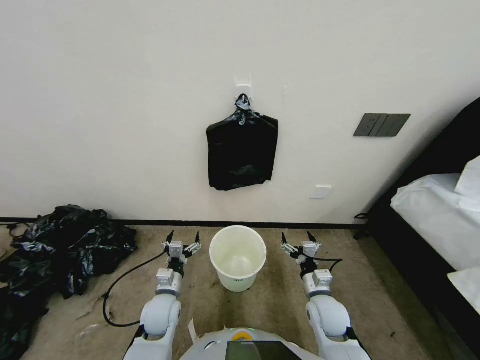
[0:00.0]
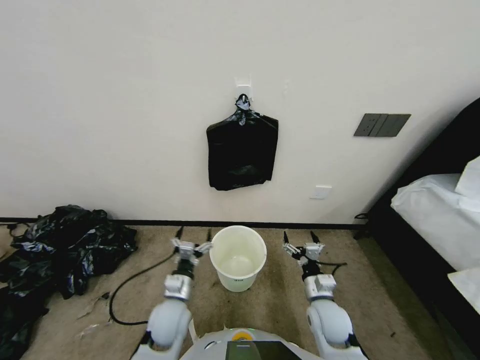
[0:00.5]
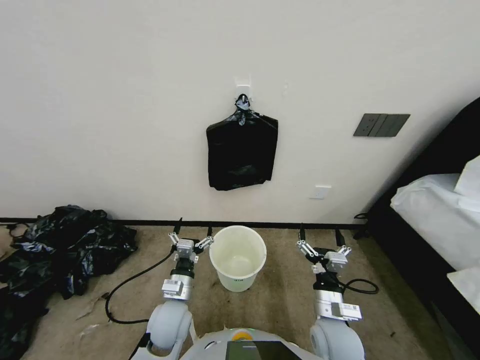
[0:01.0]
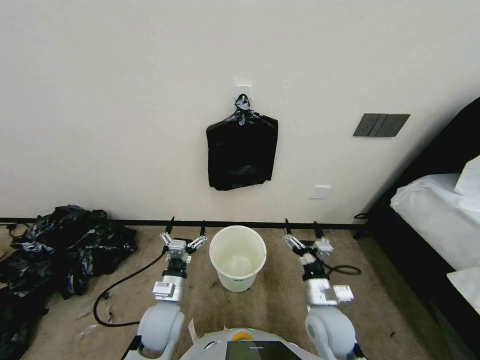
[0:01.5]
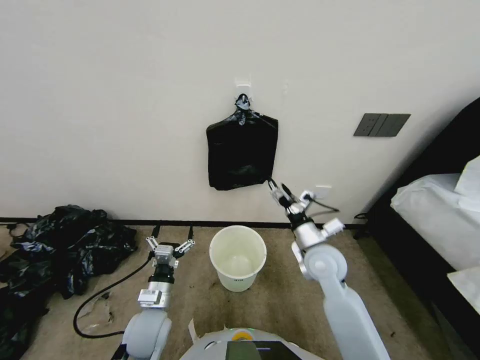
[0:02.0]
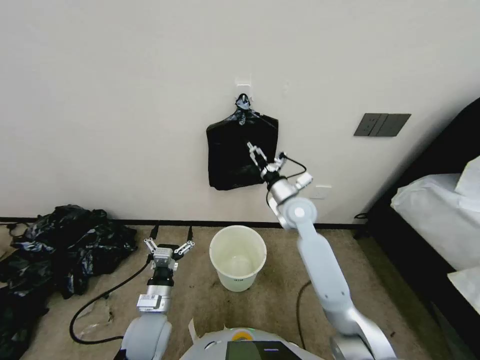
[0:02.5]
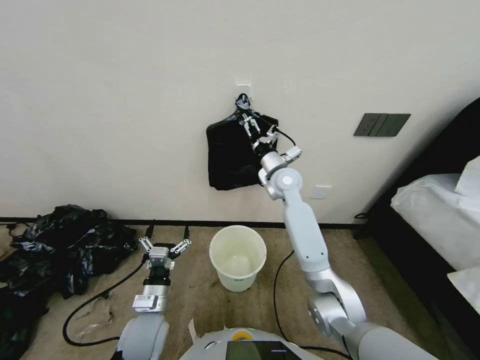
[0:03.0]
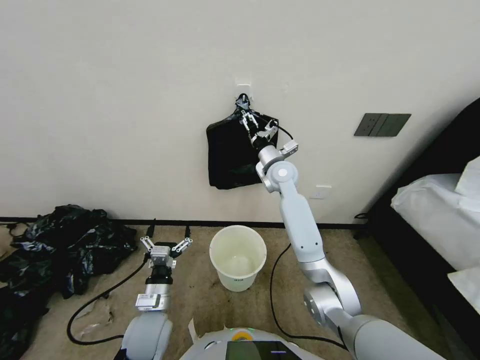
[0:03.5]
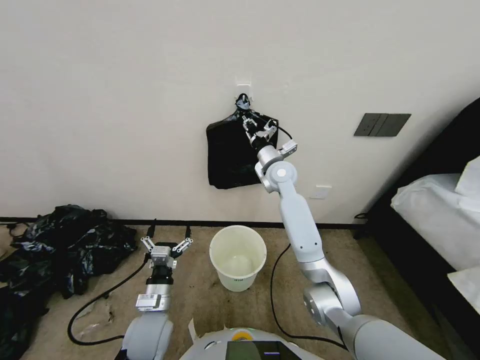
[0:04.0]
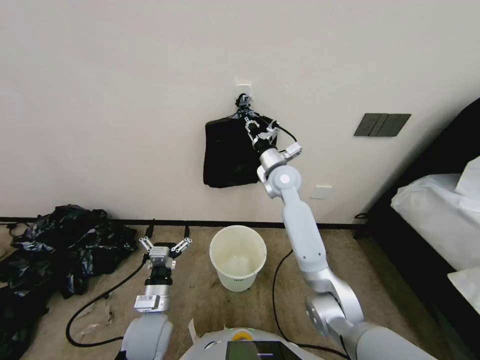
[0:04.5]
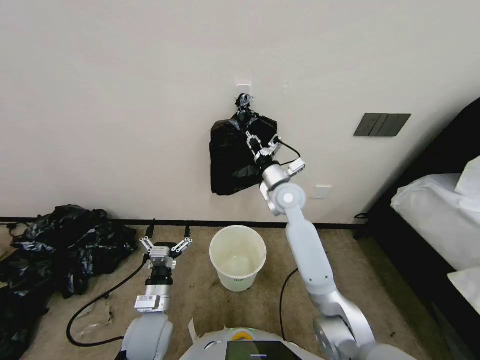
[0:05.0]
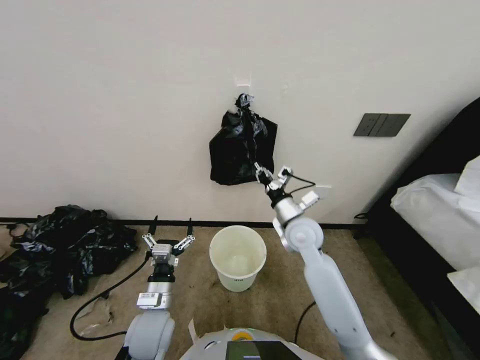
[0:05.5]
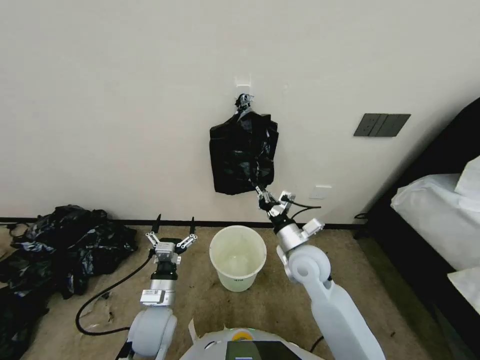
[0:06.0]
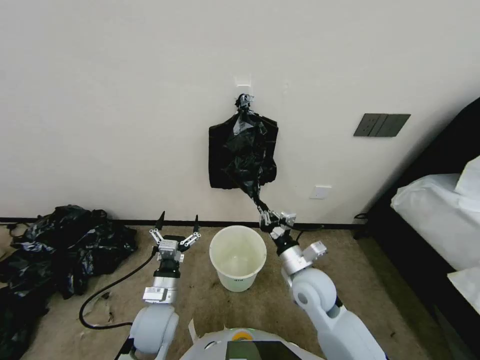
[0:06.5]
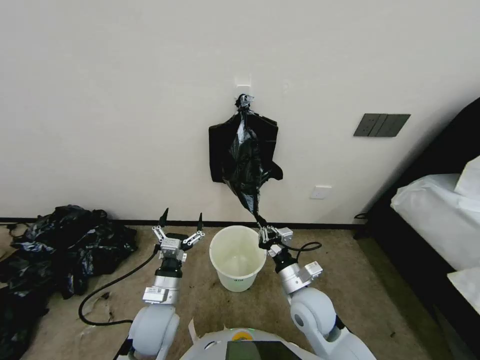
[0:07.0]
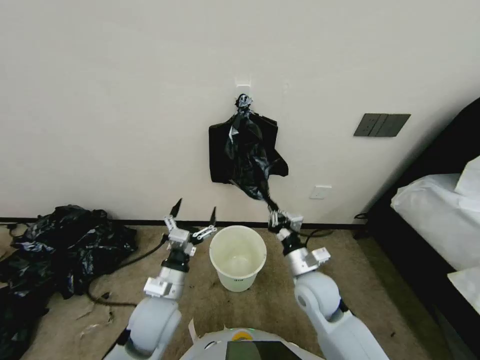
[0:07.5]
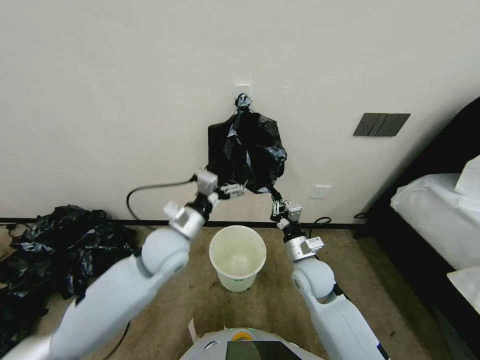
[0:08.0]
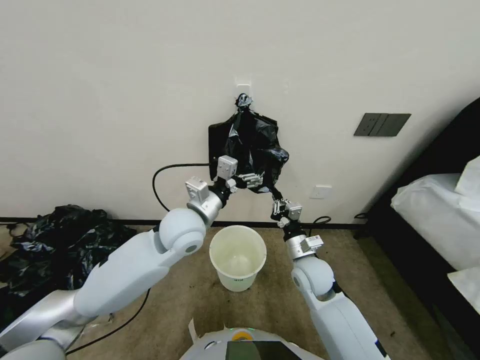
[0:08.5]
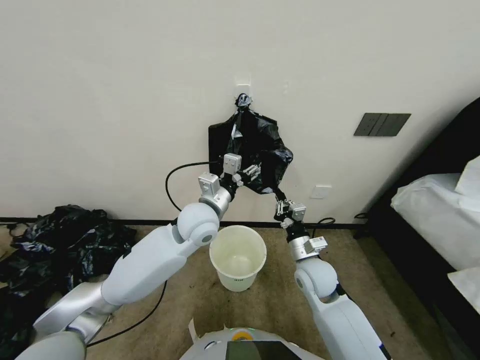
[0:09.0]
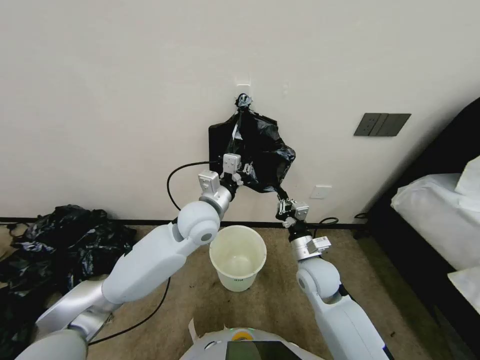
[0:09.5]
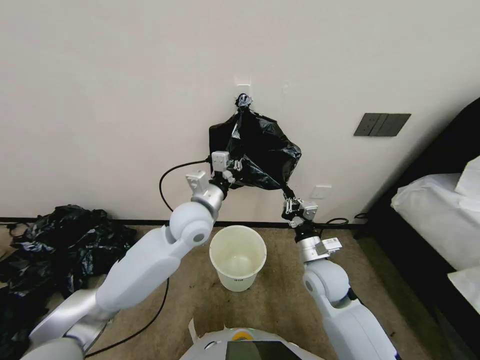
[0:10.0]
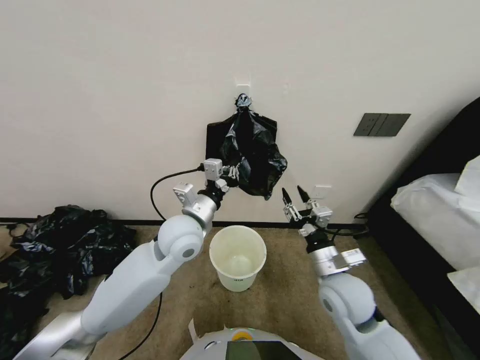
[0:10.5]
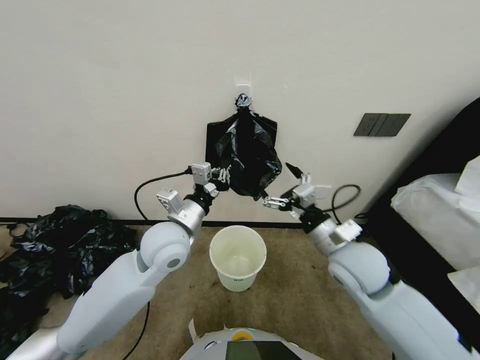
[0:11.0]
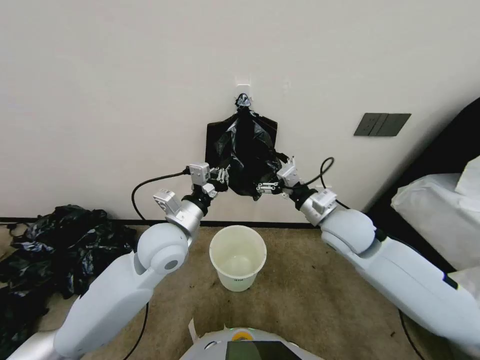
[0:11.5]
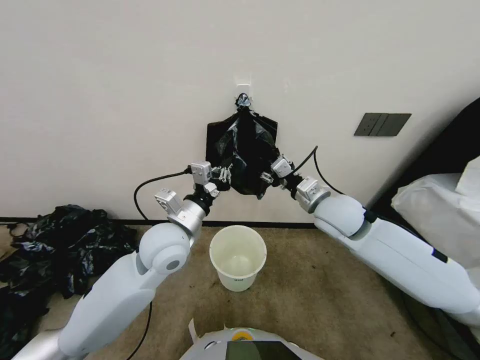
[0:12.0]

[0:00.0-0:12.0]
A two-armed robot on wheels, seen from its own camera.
Task of the whole recording: Place a trash bag onto the trash bin.
0:02.0 to 0:04.0: The right gripper travels forward and upward by roughly 25 cm, and closes.
0:04.0 to 0:06.0: The right gripper shifts some 25 cm backward and downward.
0:06.0 to 0:08.0: The right gripper travels backward and back again, roughly 10 cm each way; the left gripper is displaced upward and forward by roughly 15 cm.
0:08.0 to 0:10.0: The left gripper moves forward, to the right and upward, approximately 15 cm, and closes its fingers.
0:10.0 to 0:12.0: The left gripper goes some 10 cm backward and to the left, while the right gripper goes some 15 cm upward and forward, and opens up.

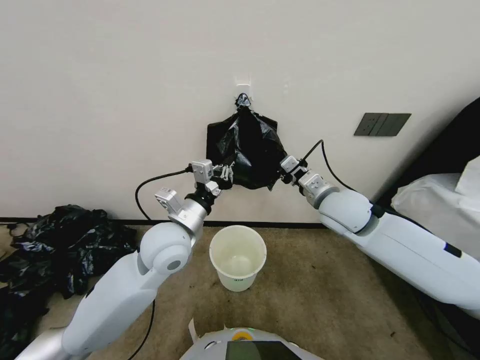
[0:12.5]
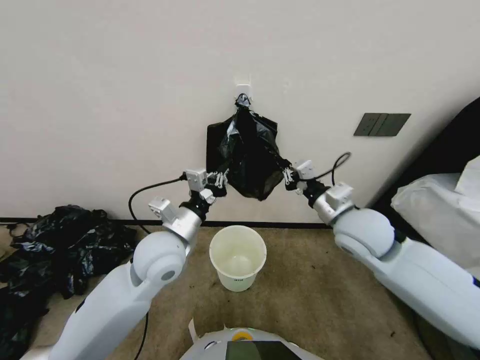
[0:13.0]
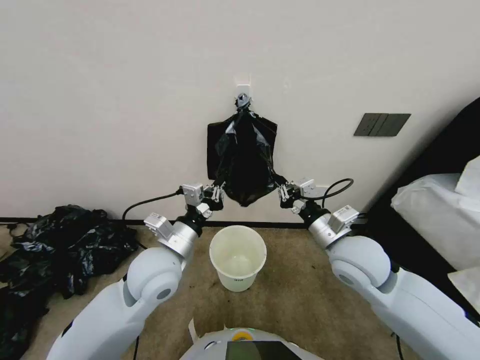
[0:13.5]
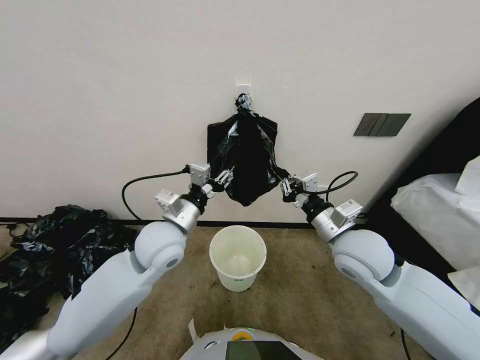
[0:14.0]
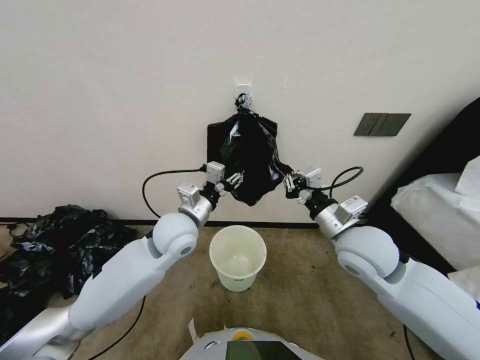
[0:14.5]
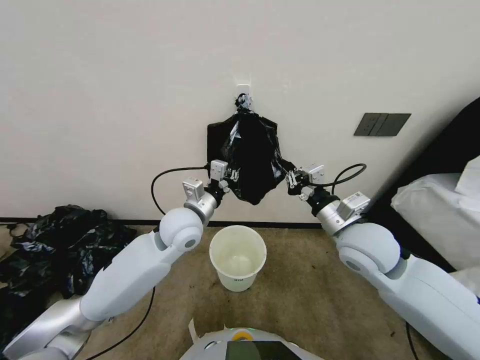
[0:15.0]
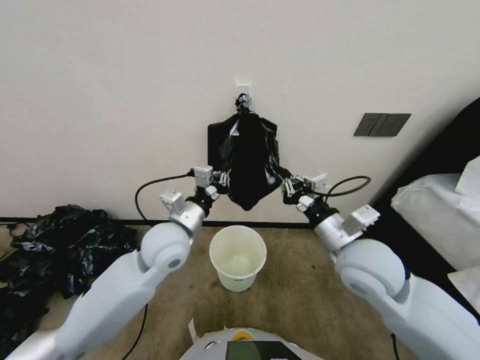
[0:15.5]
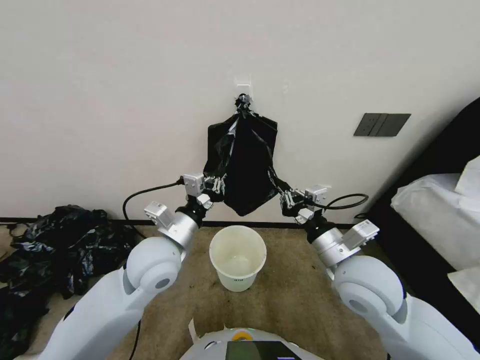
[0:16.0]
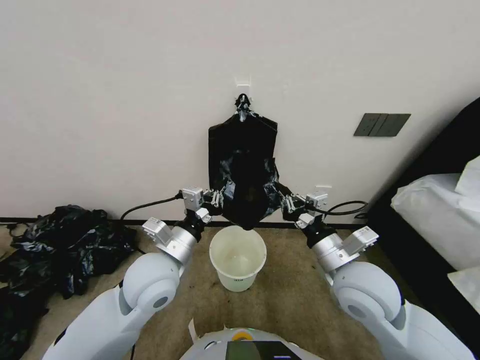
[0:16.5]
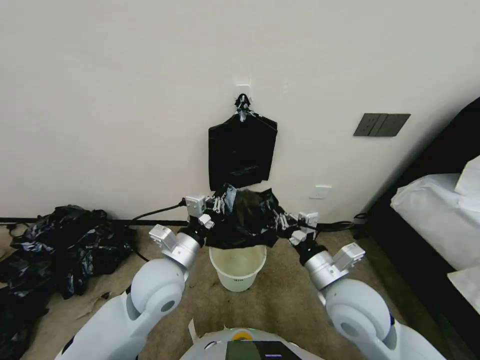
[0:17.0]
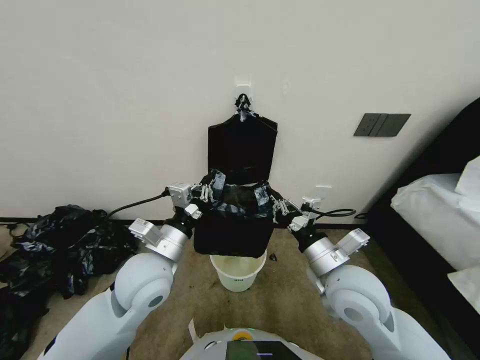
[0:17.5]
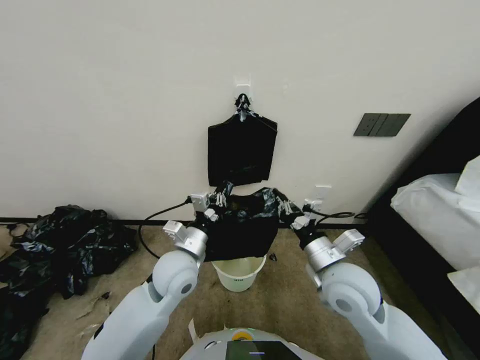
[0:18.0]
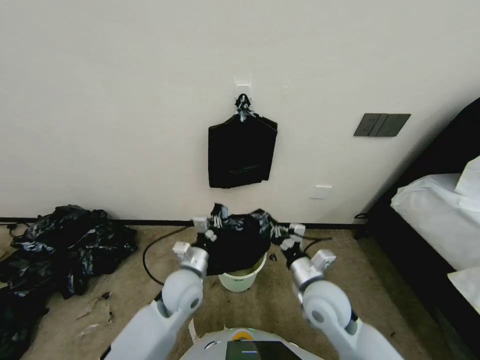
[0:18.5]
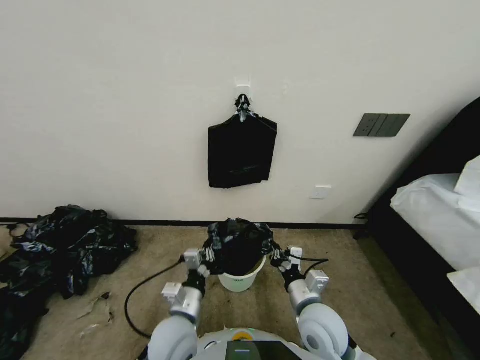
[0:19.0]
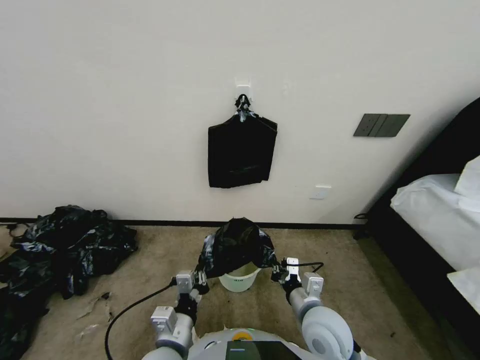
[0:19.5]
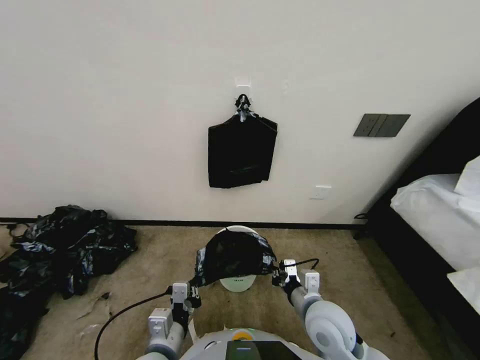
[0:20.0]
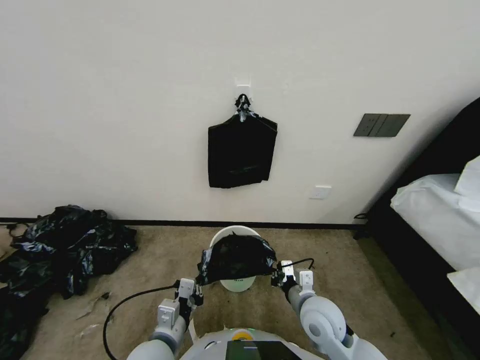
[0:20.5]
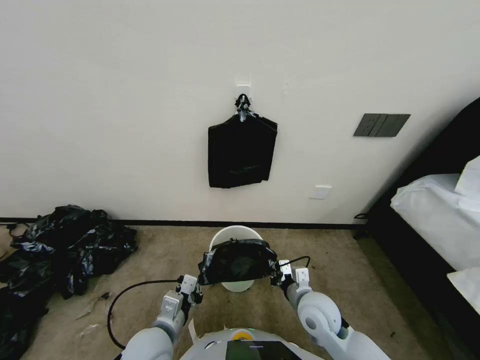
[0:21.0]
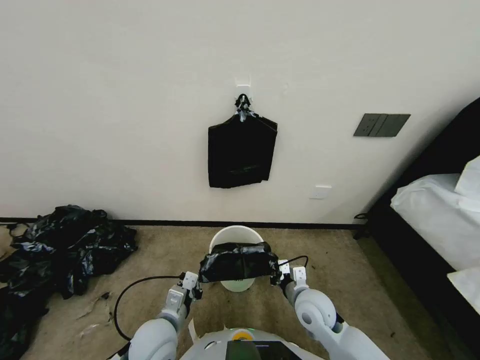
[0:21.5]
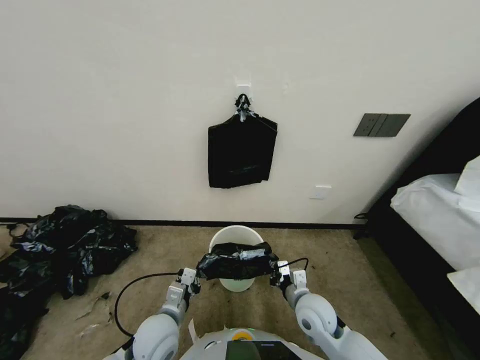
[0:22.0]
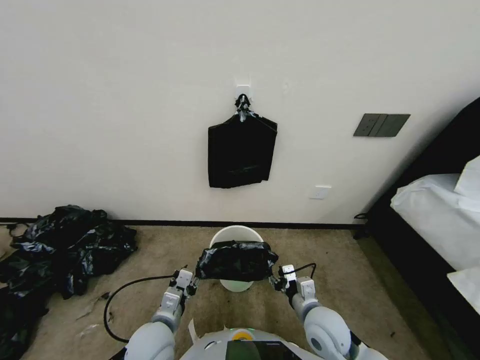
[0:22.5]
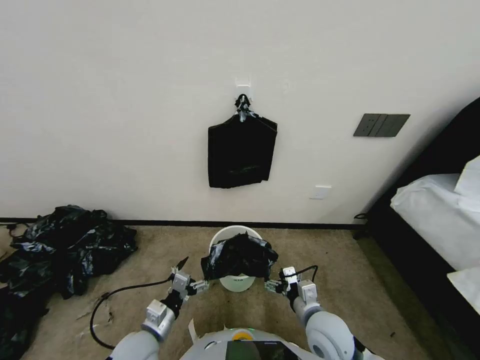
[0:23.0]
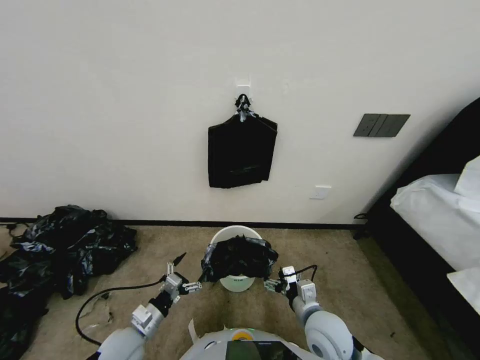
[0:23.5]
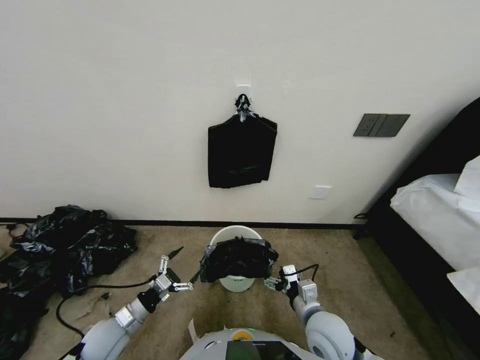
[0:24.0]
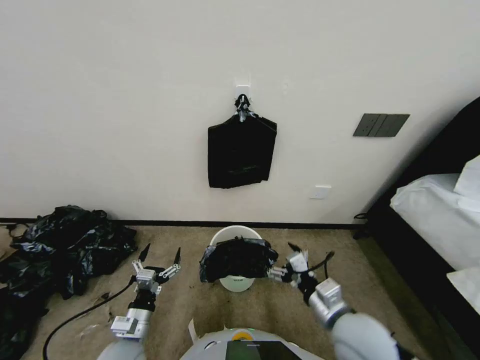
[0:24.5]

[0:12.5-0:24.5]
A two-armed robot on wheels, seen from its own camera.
Task of the whole recording: Place a trash bag onto the trash bin.
0:12.5 to 0:14.5: The right gripper heads backward, covering approximately 10 cm. Meanwhile the left gripper opens.
0:14.5 to 0:16.5: The left gripper is displaced backward by some 10 cm, and closes up; the right gripper is displaced backward by about 5 cm.
0:16.5 to 0:18.5: The two grippers go about 10 cm downward.
0:18.5 to 0:20.5: The left gripper shifts some 15 cm backward. The right gripper travels downward by some 5 cm.
0:20.5 to 0:22.5: The left gripper shifts by approximately 5 cm. Meanwhile the right gripper opens its fingers.
0:22.5 to 0:24.5: The right gripper shifts some 5 cm upward, and opens up. Meanwhile the left gripper is displaced to the left by about 10 cm, and opens up.

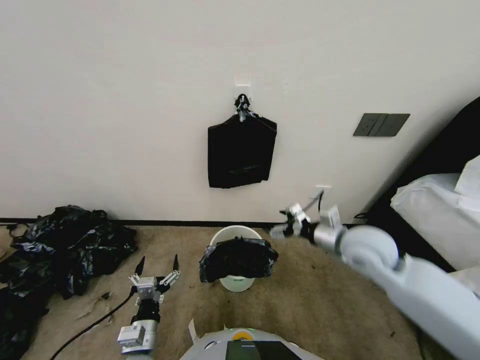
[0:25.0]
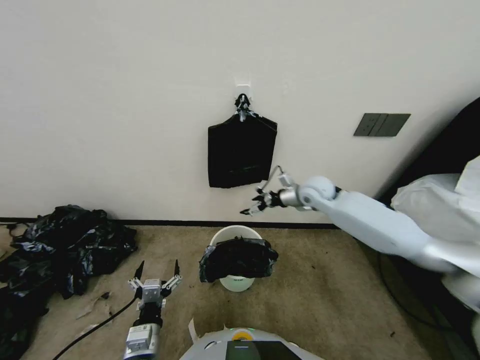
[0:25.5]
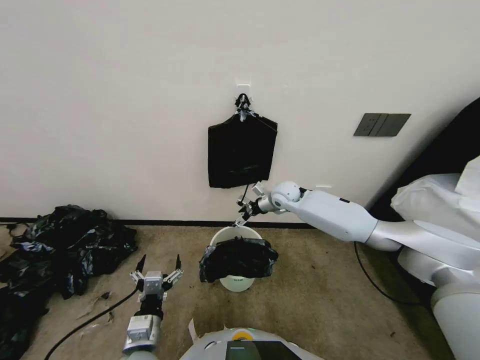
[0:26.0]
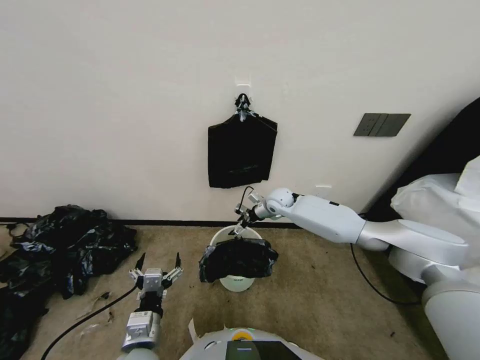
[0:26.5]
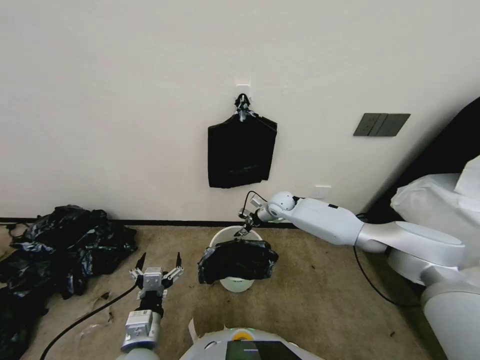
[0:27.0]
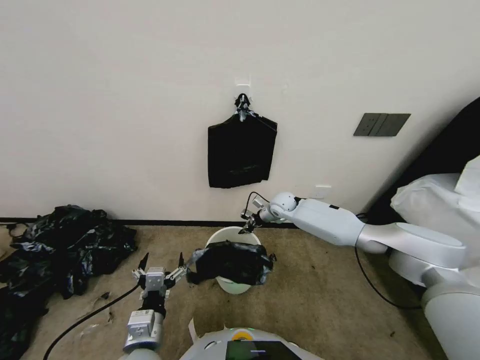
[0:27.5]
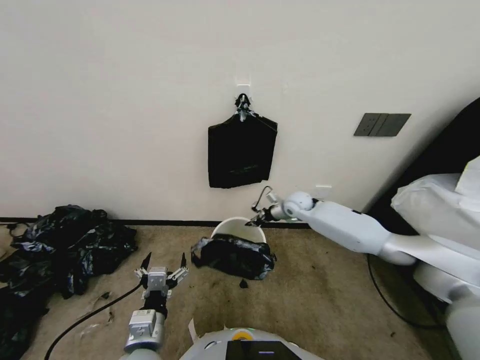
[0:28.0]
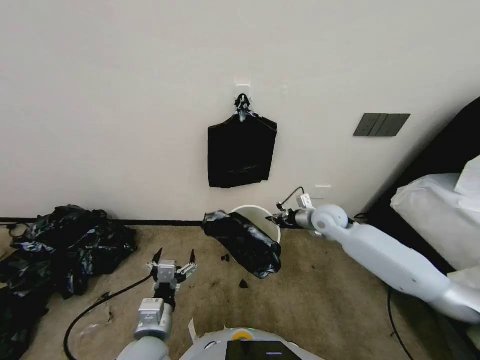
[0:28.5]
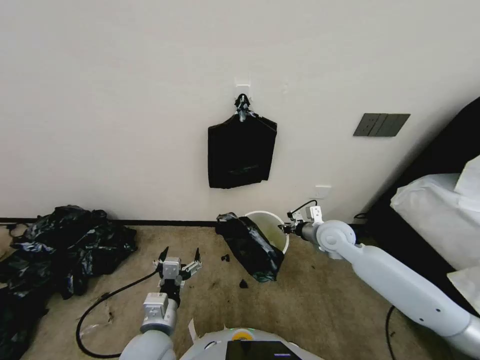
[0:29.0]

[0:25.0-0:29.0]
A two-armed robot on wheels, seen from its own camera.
Task of the whole recording: Place a trash bag onto the trash bin.
0:25.0 to 0:27.0: The left gripper moves upward, approximately 5 cm. Meanwhile the right gripper is displaced forward by some 30 cm, and closes its fingers.
0:27.0 to 0:29.0: The right gripper goes some 20 cm backward and to the right, and closes its fingers.
